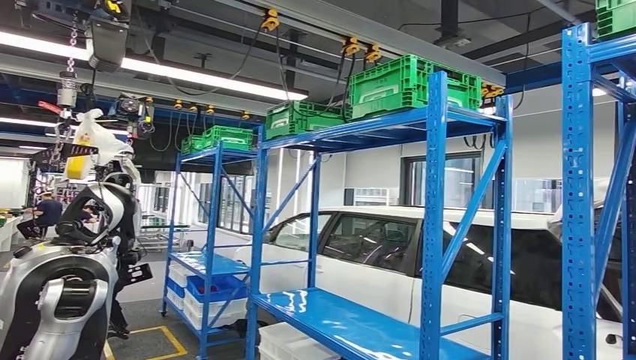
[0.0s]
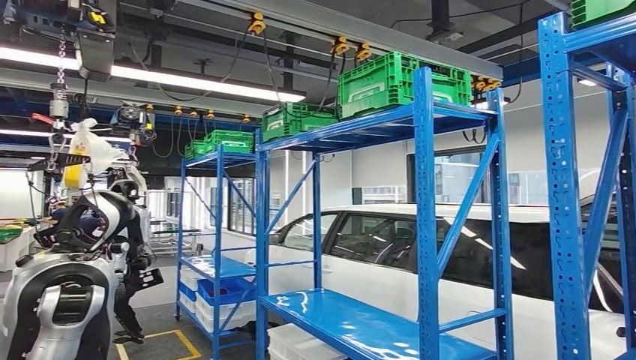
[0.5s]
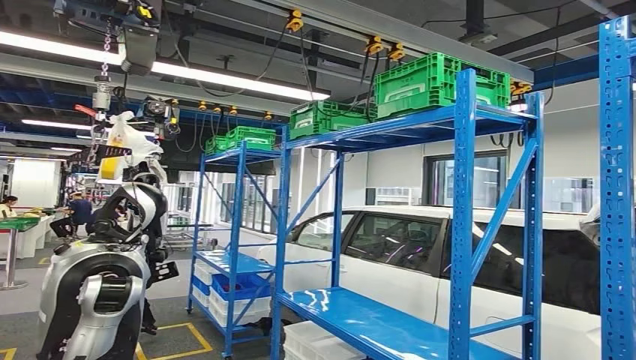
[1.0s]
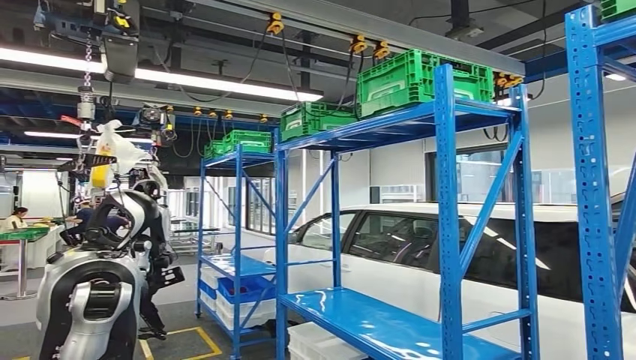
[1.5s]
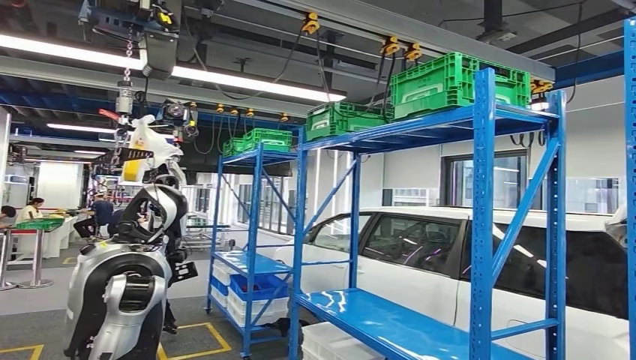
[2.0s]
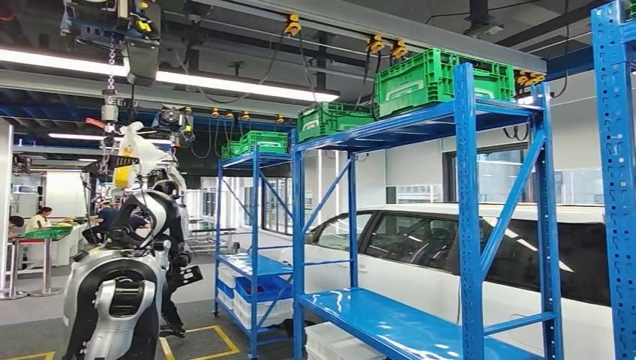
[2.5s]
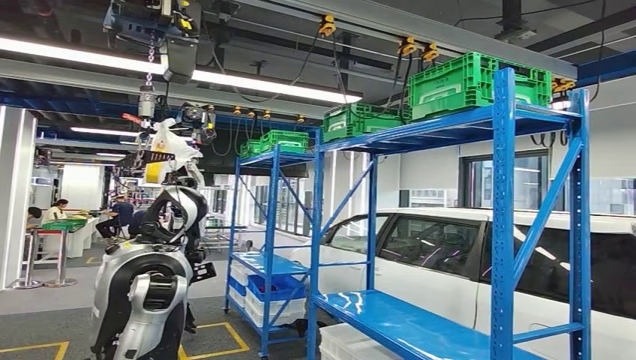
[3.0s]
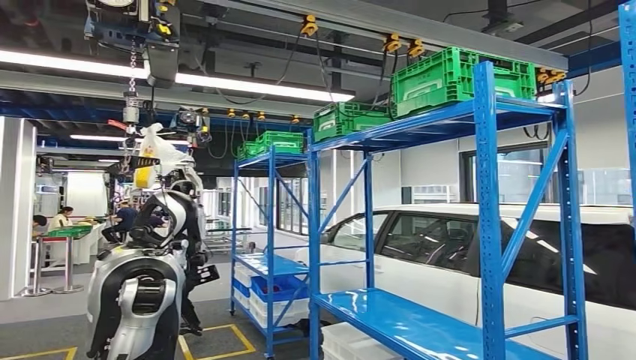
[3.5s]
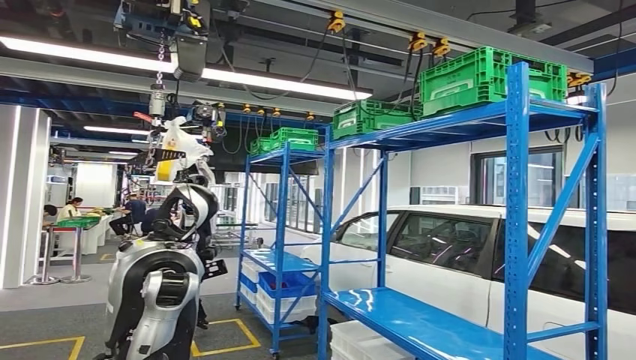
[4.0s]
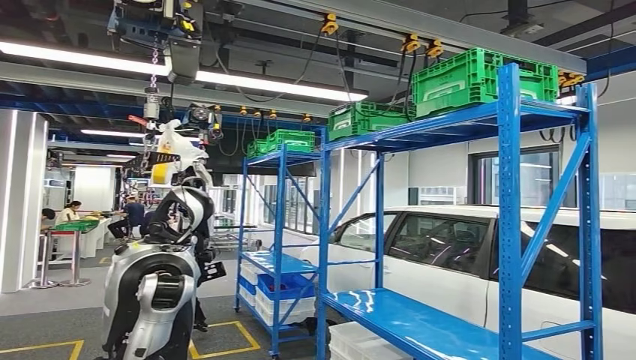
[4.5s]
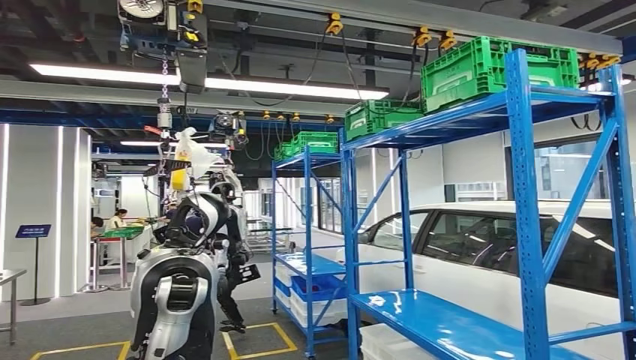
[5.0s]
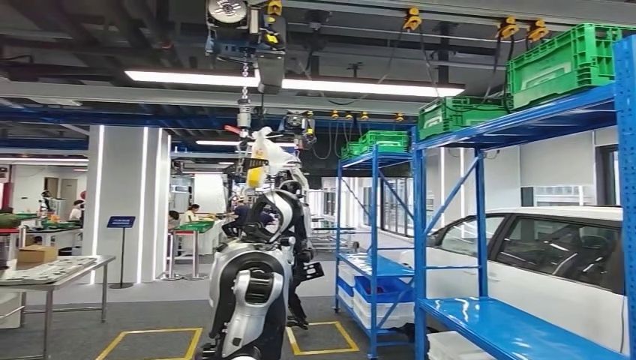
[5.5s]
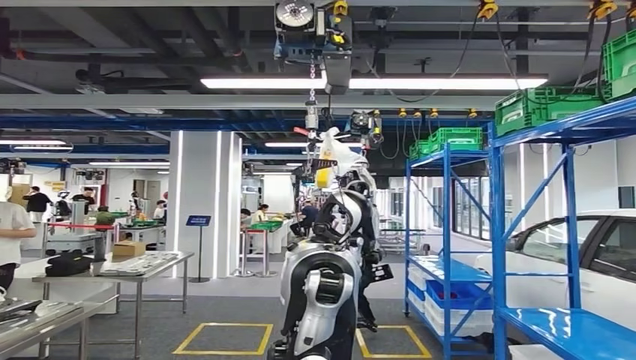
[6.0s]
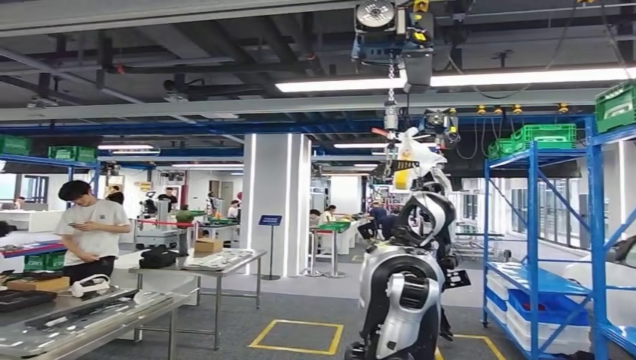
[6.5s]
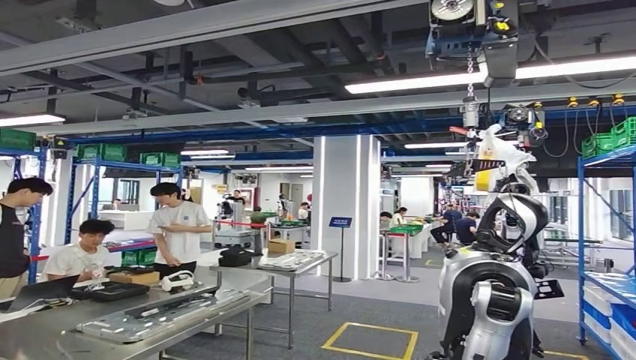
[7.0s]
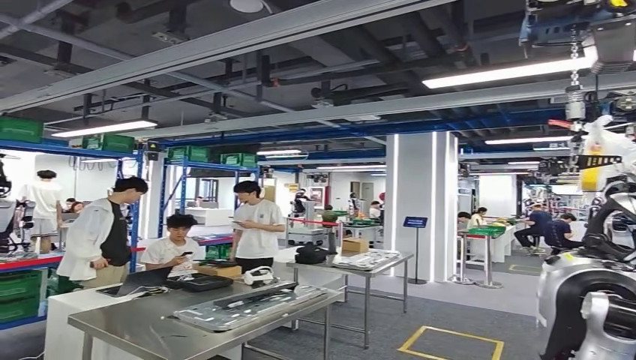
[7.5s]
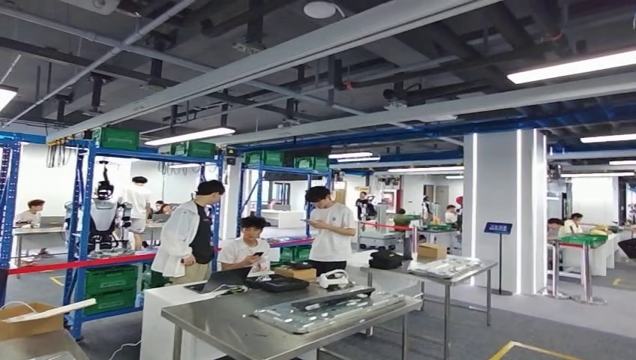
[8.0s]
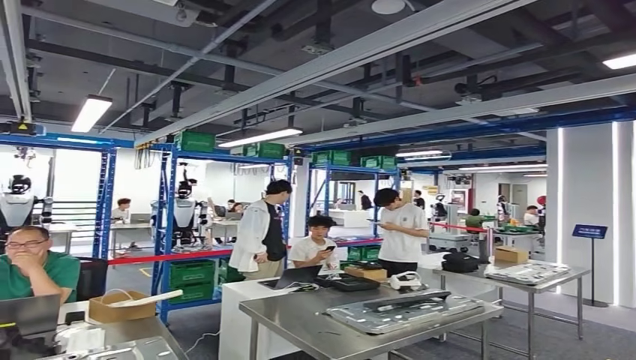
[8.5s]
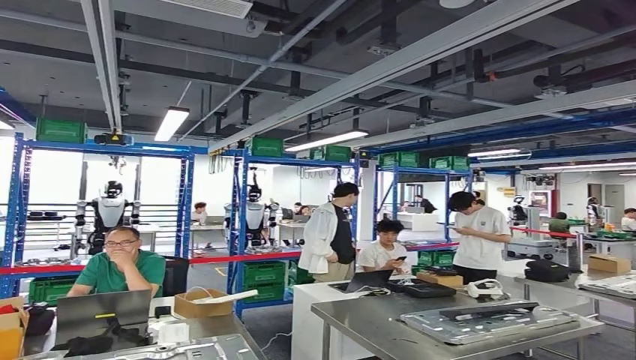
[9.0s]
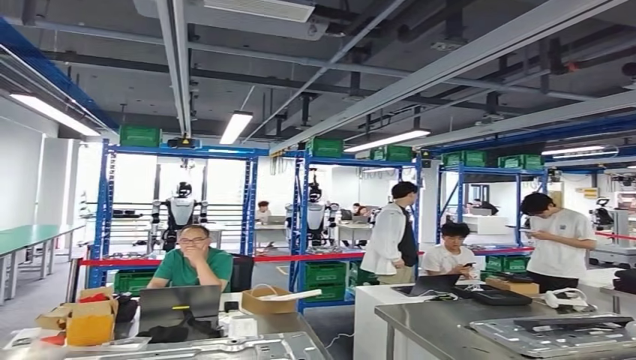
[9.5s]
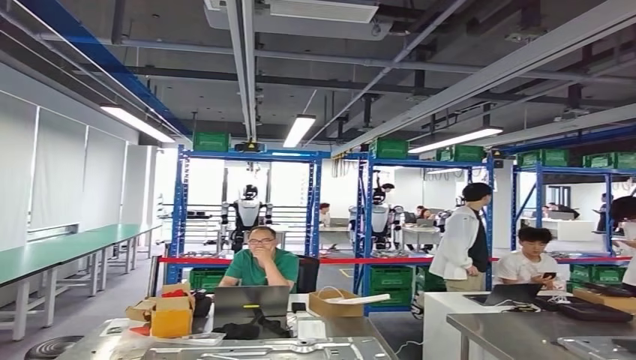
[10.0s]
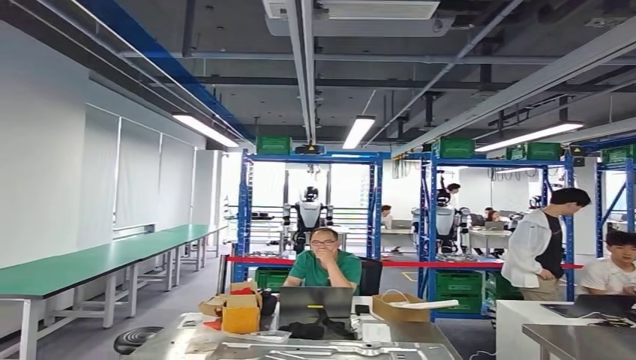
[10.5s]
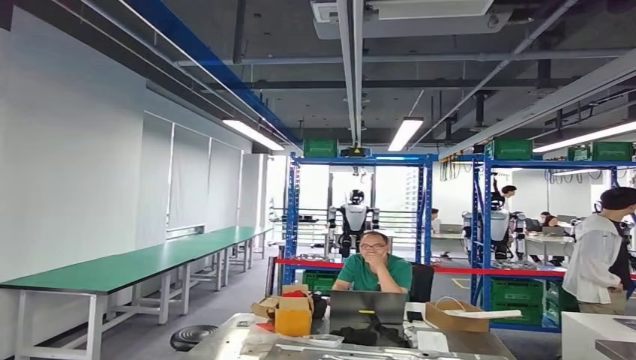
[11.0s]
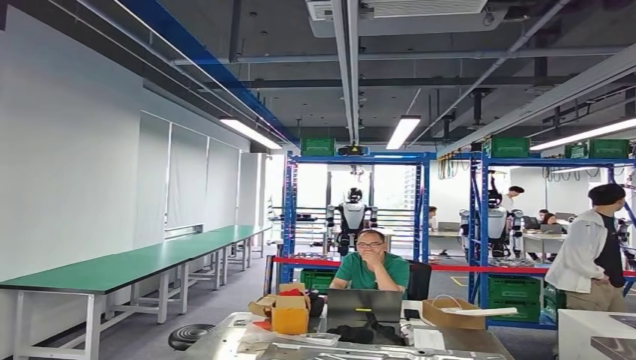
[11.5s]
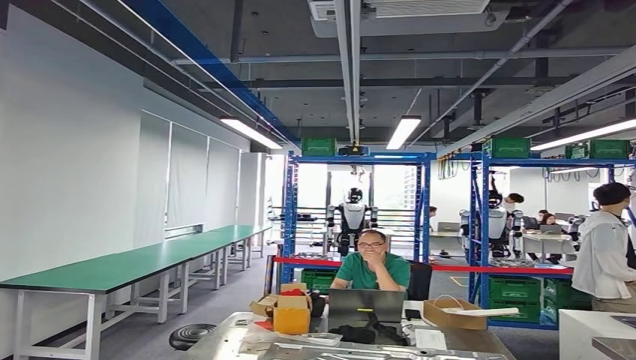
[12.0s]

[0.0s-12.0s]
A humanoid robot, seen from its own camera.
Step, 0.0s to 10.5s: Move the small component to the workbench.

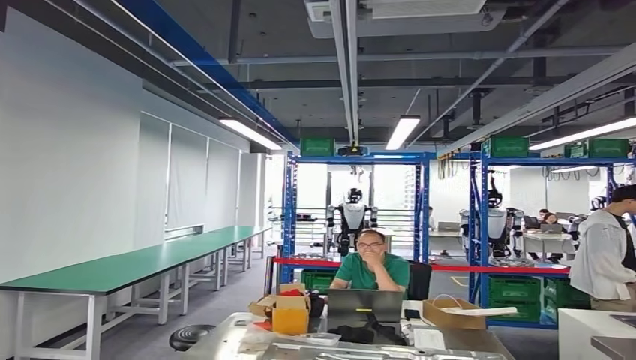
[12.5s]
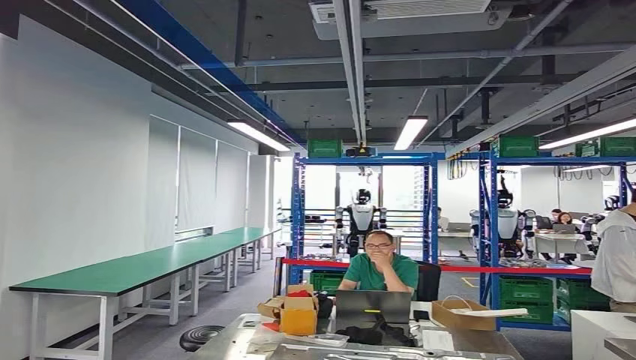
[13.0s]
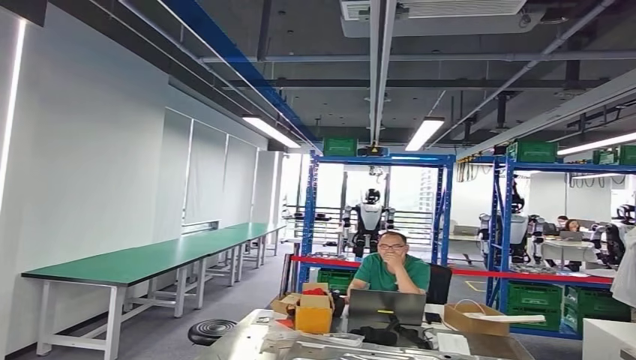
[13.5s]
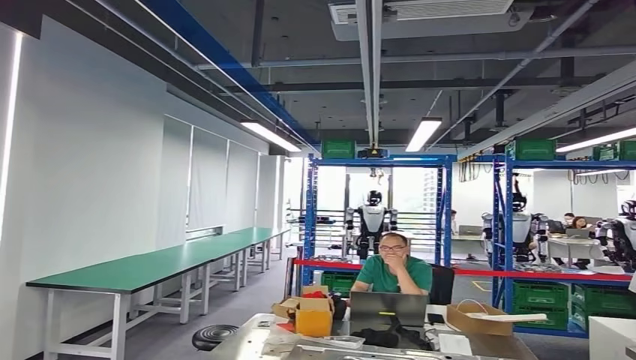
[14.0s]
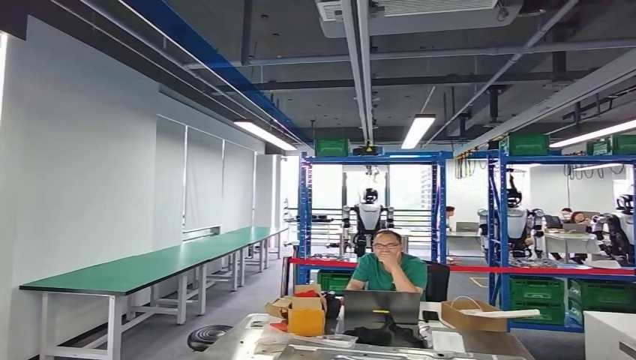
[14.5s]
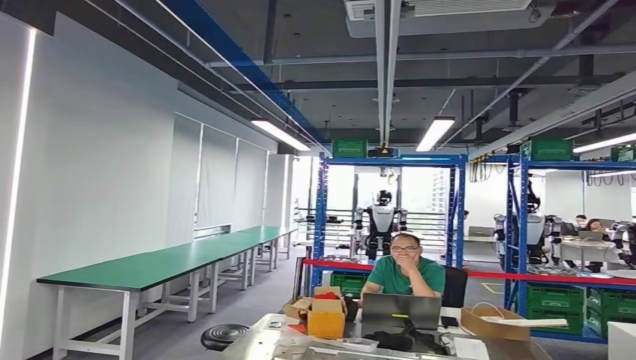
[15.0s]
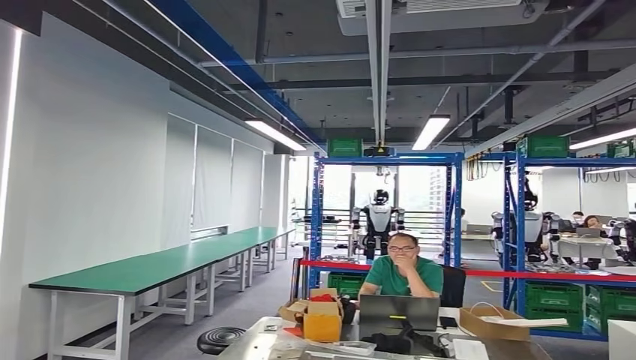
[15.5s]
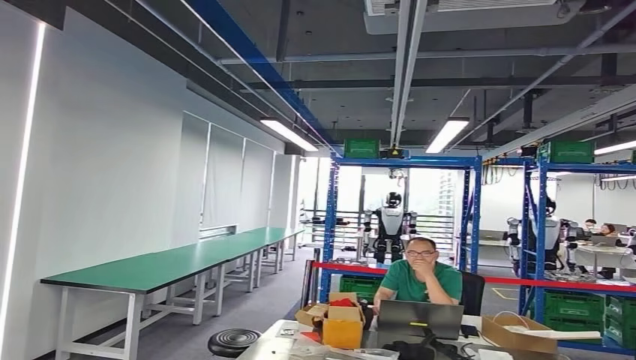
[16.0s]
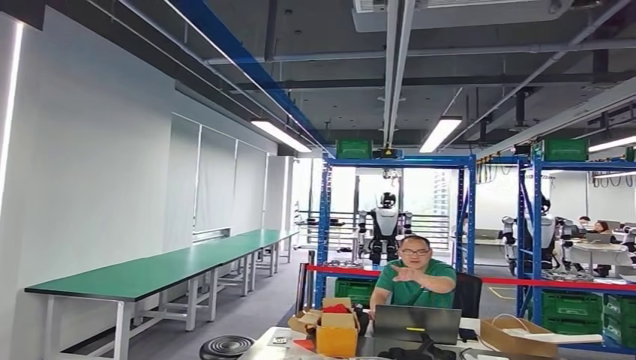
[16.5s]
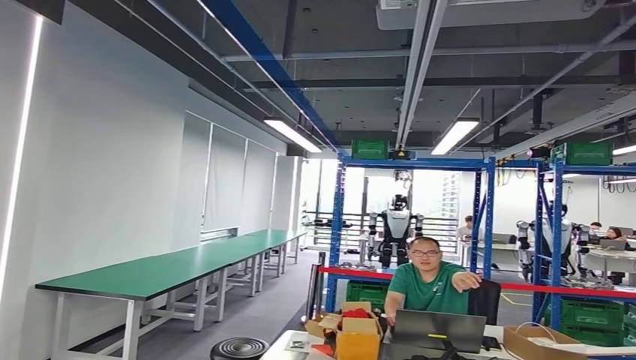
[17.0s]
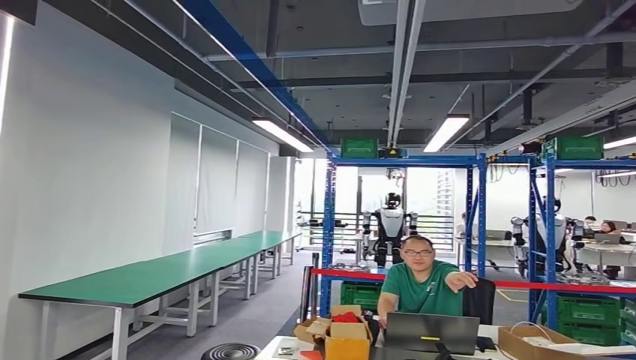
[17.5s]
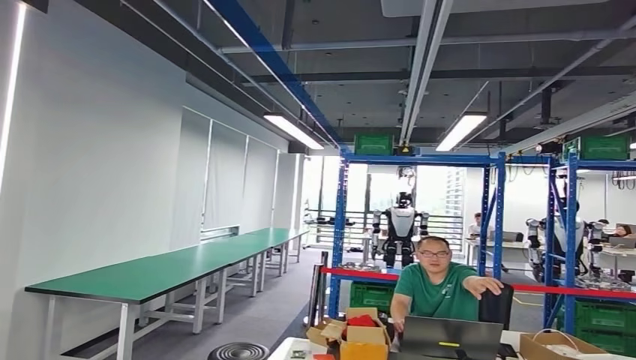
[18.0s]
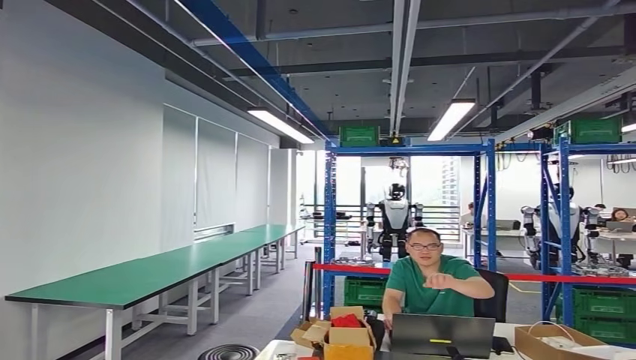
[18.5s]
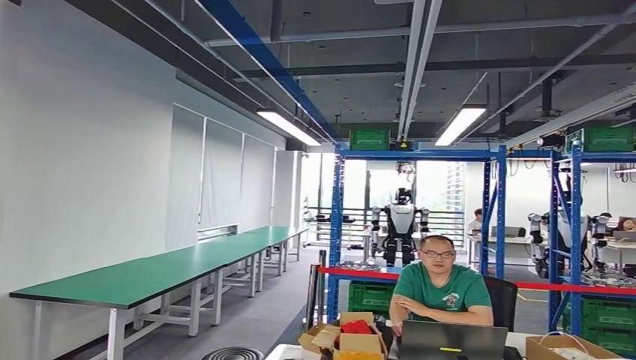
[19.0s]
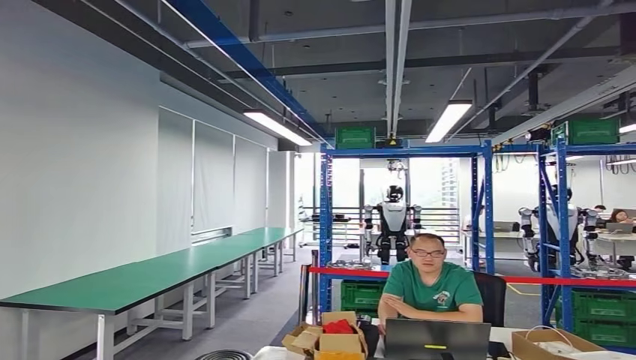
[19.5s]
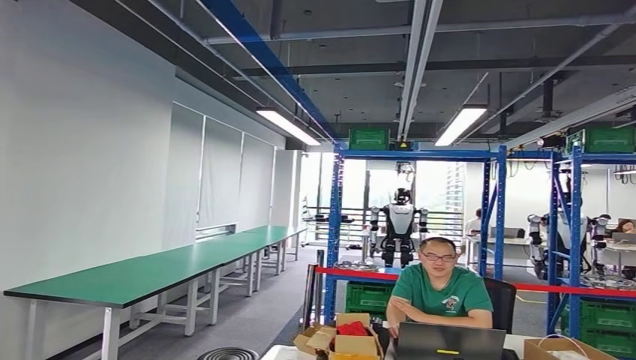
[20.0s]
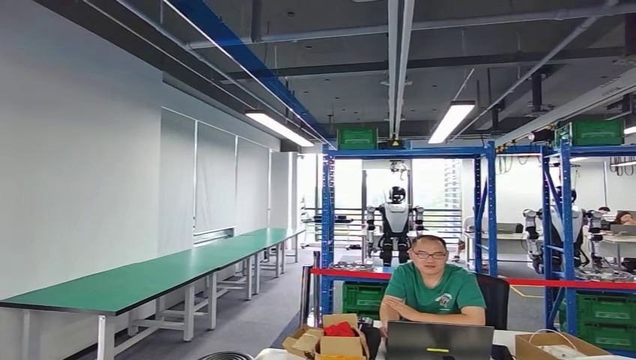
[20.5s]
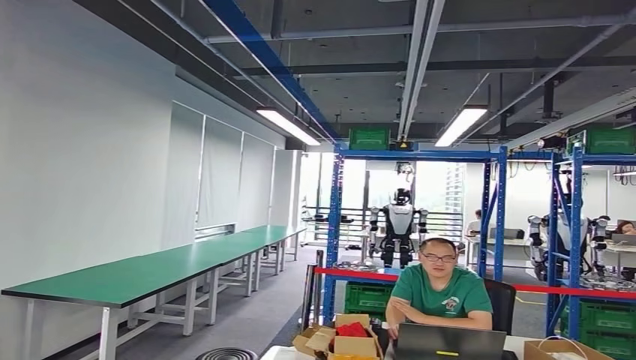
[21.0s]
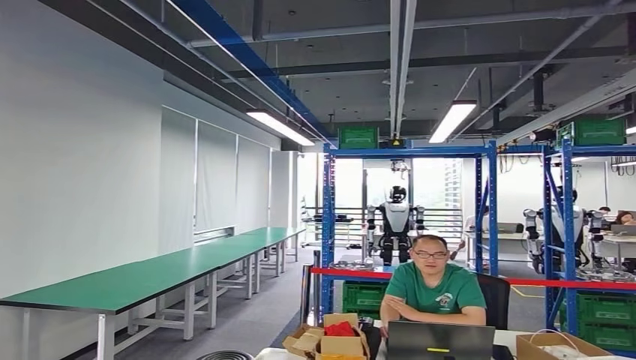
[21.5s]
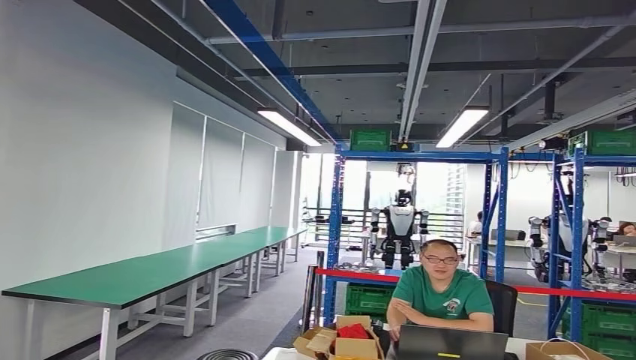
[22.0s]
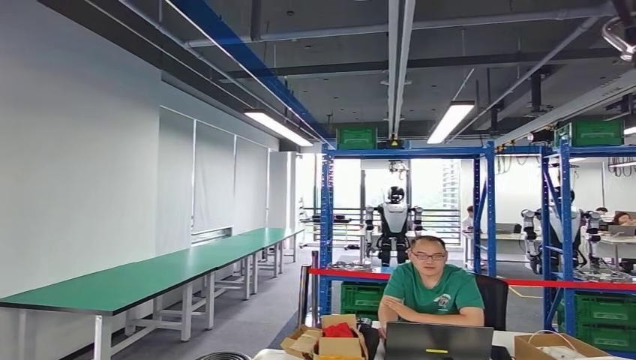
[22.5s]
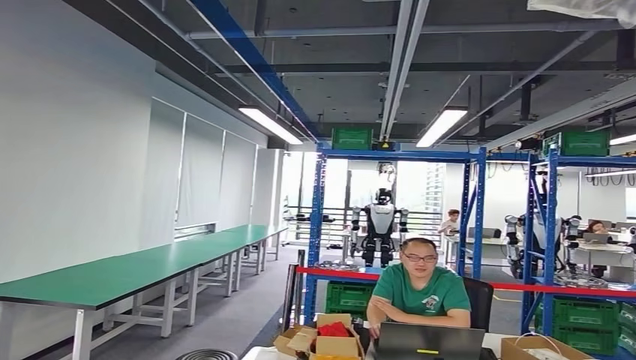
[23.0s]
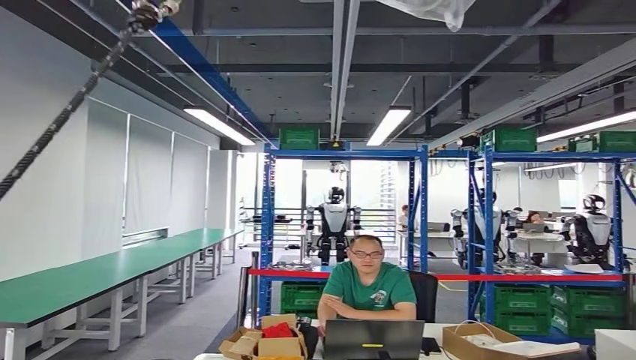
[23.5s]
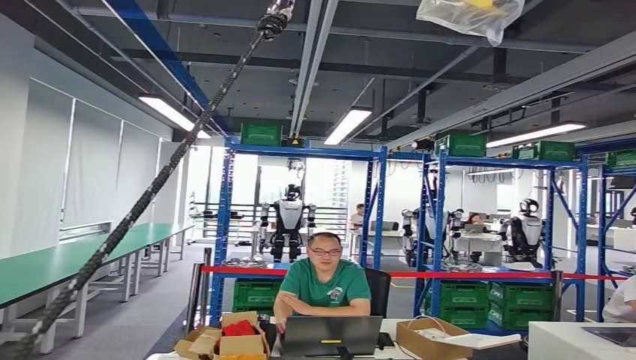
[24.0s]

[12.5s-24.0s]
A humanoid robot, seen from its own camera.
20.0s to 22.0s: The hands stay close to where they were, moving slightly.
